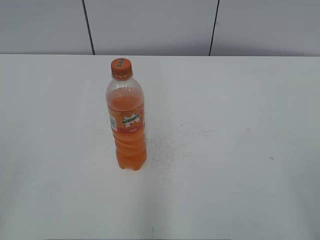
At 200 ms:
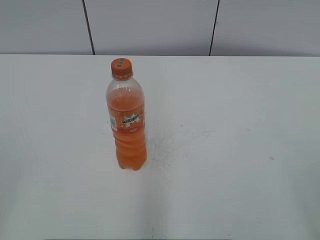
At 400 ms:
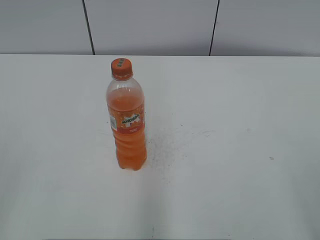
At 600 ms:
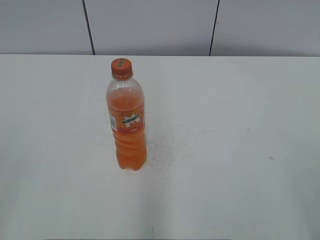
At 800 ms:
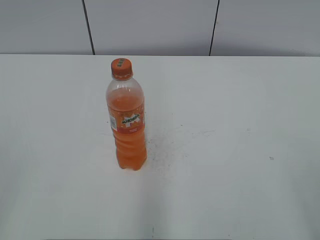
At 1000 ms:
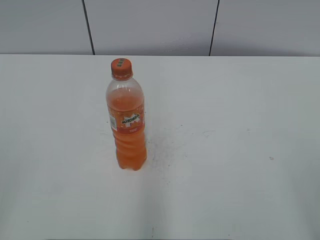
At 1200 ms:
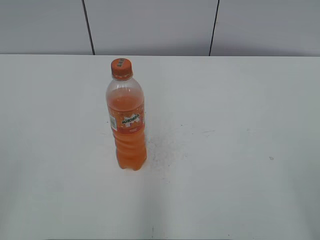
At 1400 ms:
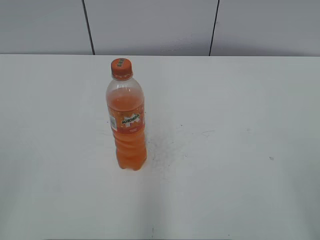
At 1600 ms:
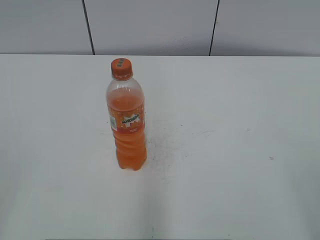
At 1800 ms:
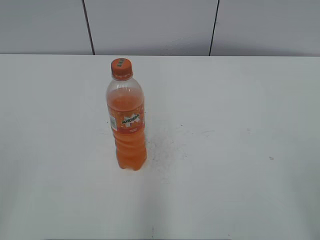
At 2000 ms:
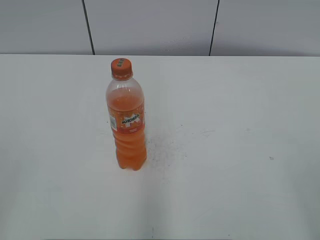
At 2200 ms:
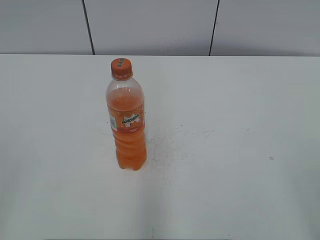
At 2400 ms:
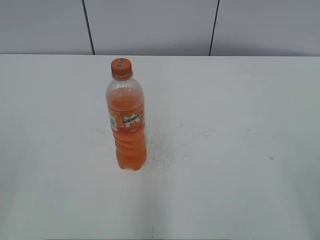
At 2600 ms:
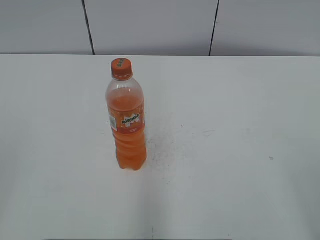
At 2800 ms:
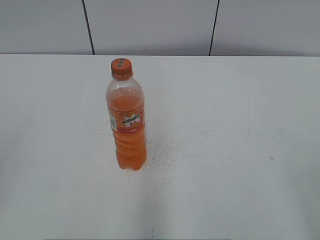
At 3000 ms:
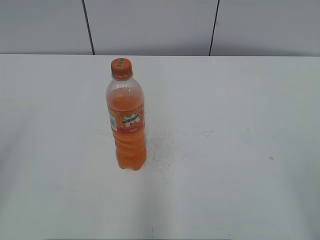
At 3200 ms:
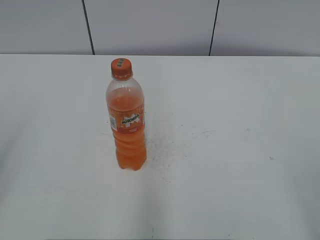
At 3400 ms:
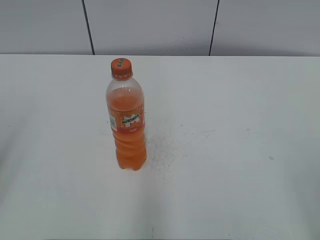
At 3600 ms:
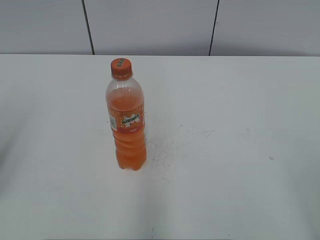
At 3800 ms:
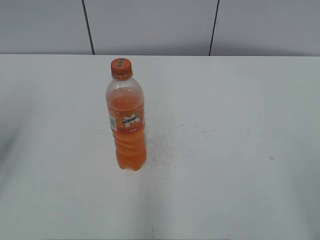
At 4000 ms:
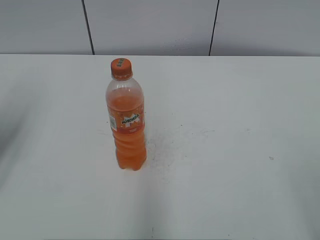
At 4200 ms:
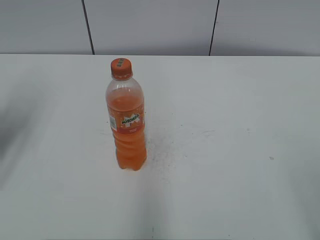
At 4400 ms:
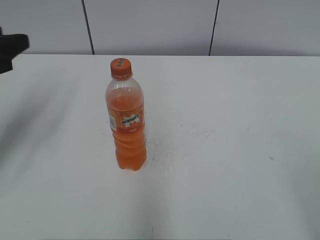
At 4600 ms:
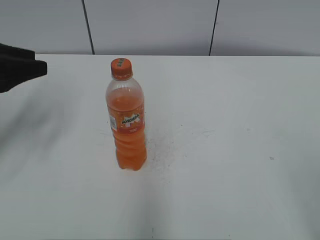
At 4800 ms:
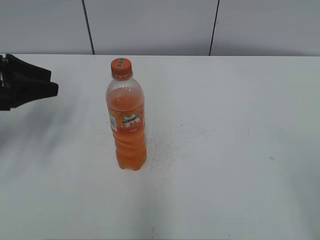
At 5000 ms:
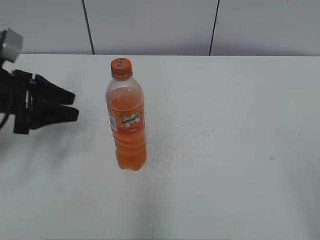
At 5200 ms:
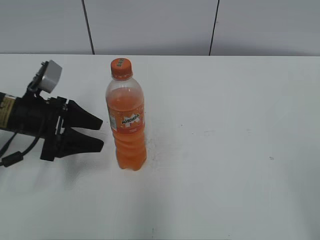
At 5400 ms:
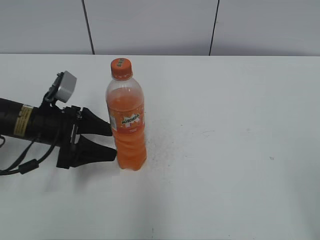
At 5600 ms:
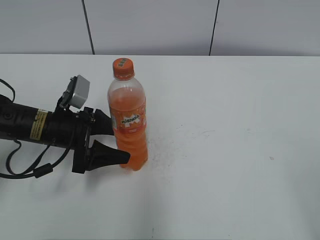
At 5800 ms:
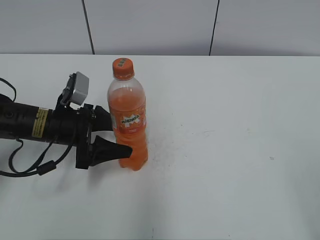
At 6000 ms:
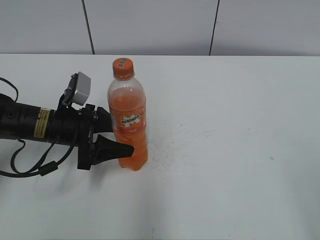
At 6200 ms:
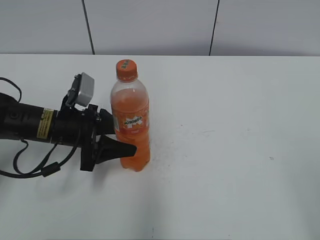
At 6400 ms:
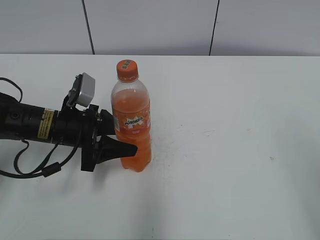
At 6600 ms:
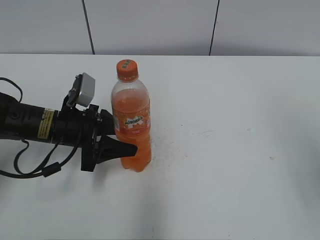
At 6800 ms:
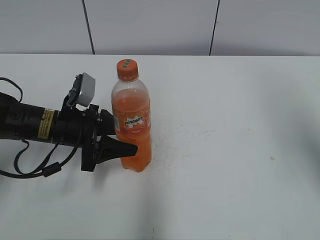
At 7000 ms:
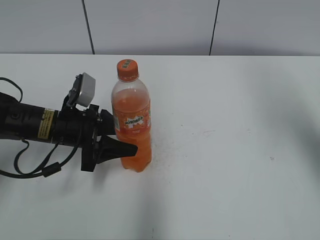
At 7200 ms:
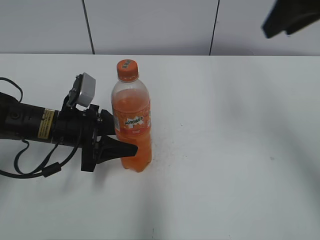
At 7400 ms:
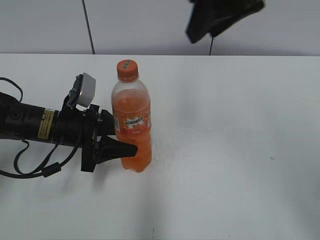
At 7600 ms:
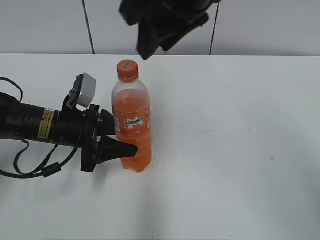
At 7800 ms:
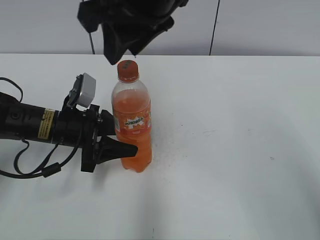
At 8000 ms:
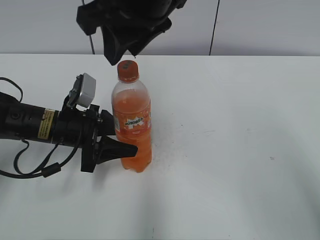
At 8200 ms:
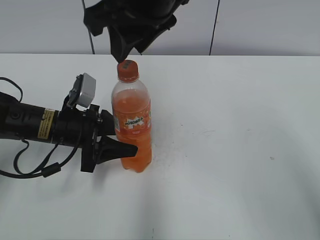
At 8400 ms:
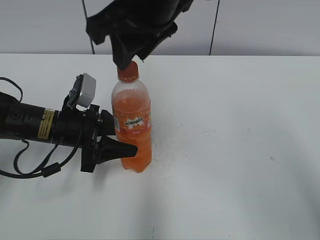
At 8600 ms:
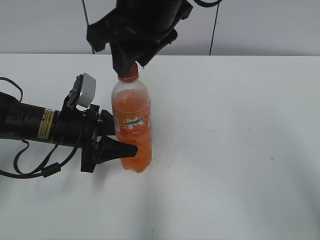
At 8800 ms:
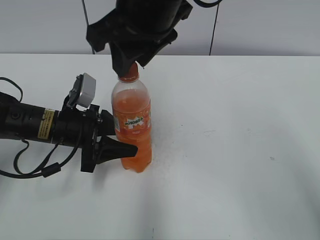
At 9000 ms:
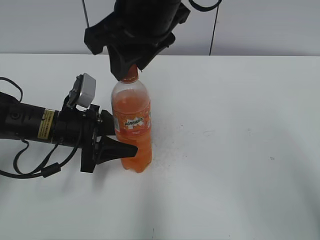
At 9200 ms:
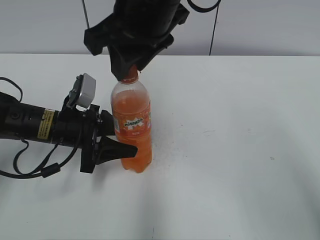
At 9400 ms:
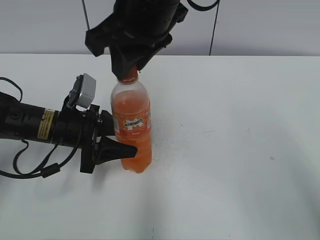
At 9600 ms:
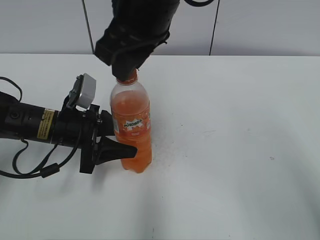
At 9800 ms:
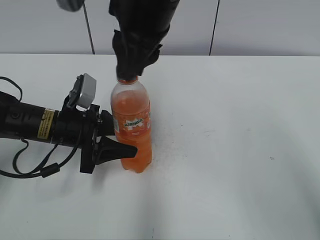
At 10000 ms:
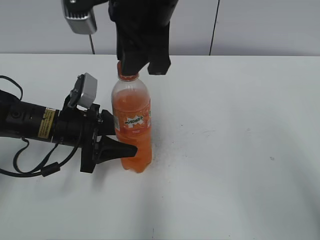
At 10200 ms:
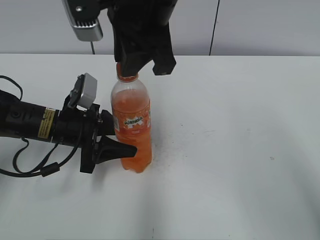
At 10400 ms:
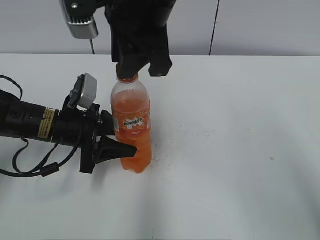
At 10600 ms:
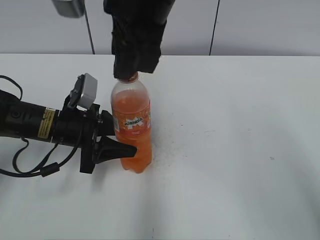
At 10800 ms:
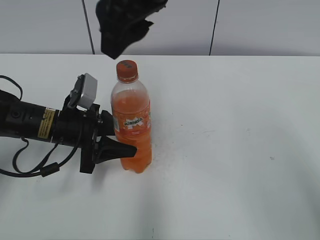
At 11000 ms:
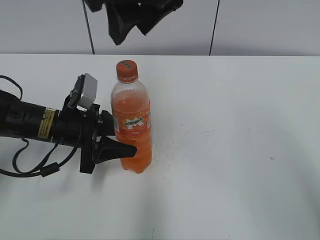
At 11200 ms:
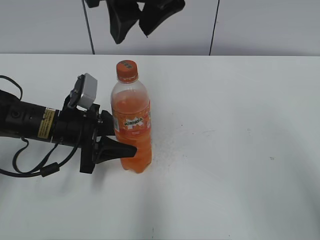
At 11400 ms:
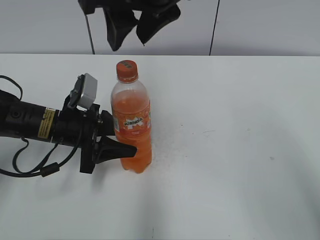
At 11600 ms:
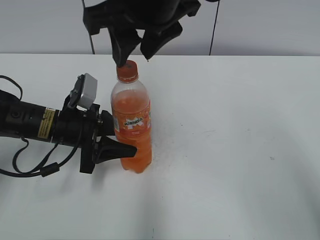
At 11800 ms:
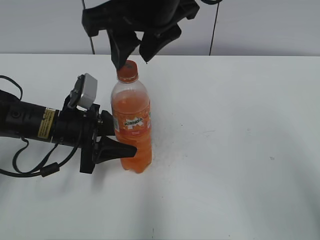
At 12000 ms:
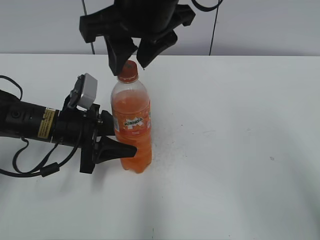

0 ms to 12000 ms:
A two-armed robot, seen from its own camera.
Step, 0 ms to 6400 ms: Grab the Mirinda with the left hand.
3000 ms to 4400 ms: The left gripper is displaced forward by roughly 20 cm.
4400 ms to 6000 ms: The left gripper is displaced downward and to the right by some 20 cm, and opens its fingers.
6000 ms to 7600 ms: The left gripper closes up; the right gripper moves forward and to the left, about 40 cm, and closes its fingers.
7600 ms to 9000 ms: The right gripper ends up approximately 5 cm from where it was.
10400 ms to 12000 ms: The right gripper opens its fingers.

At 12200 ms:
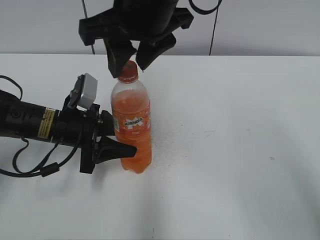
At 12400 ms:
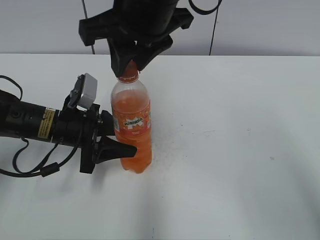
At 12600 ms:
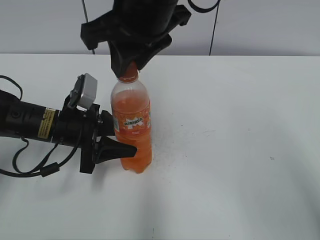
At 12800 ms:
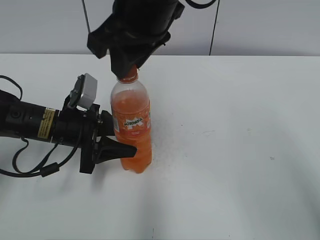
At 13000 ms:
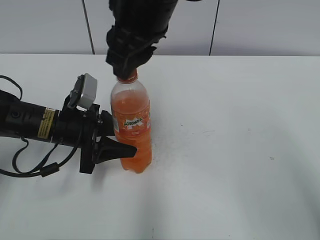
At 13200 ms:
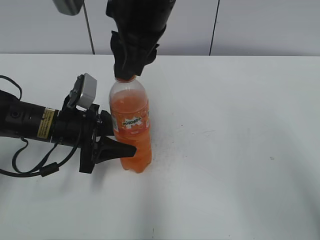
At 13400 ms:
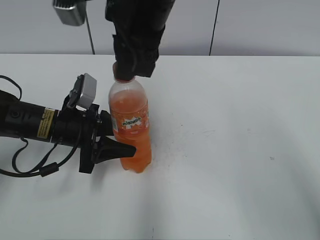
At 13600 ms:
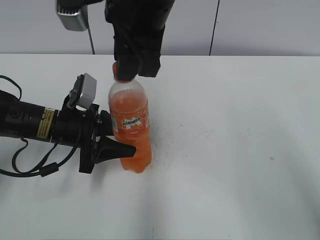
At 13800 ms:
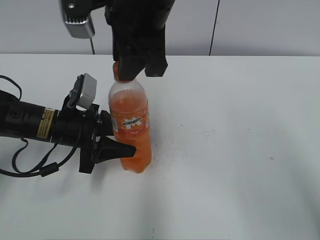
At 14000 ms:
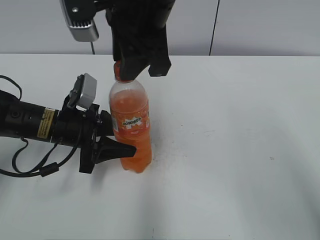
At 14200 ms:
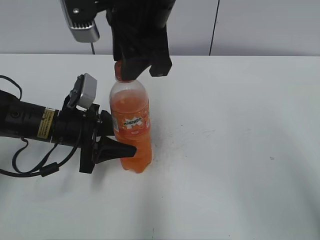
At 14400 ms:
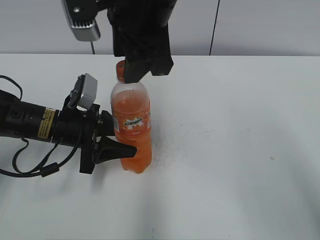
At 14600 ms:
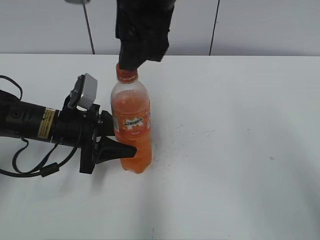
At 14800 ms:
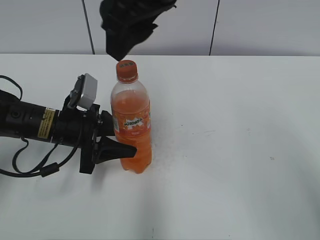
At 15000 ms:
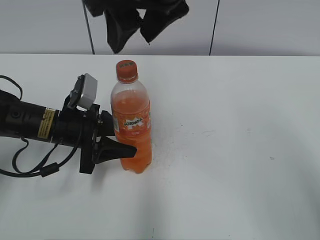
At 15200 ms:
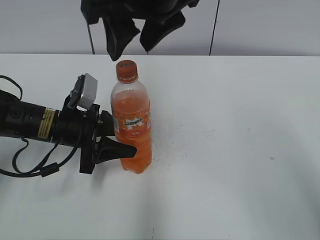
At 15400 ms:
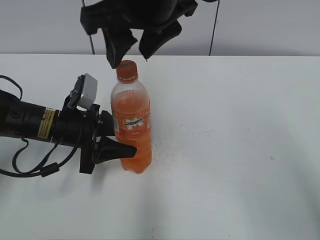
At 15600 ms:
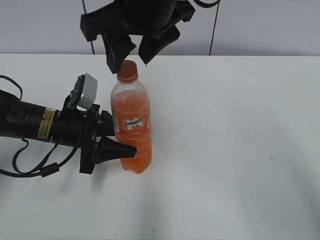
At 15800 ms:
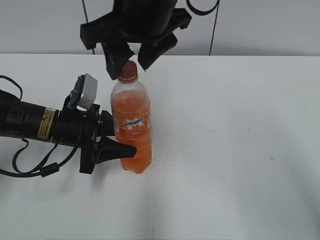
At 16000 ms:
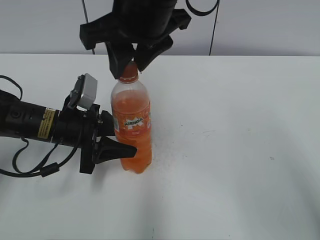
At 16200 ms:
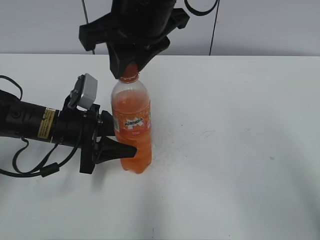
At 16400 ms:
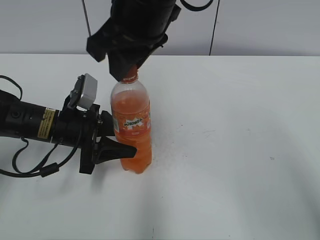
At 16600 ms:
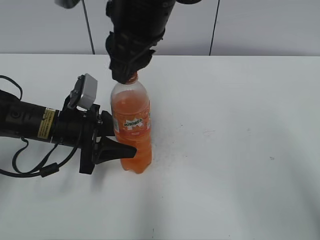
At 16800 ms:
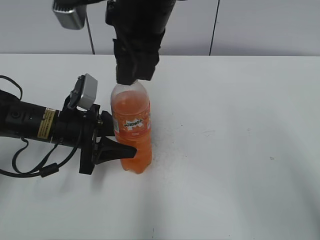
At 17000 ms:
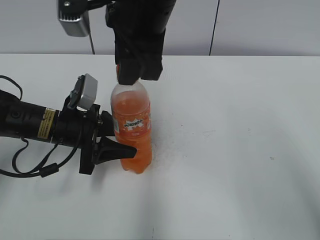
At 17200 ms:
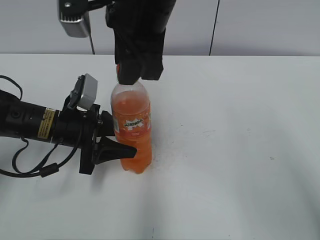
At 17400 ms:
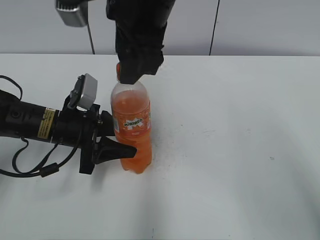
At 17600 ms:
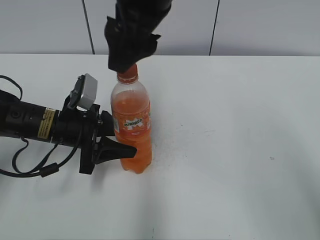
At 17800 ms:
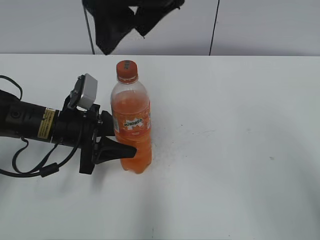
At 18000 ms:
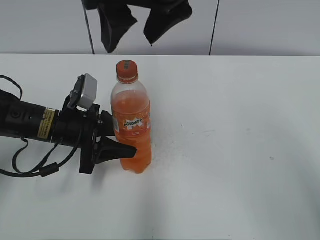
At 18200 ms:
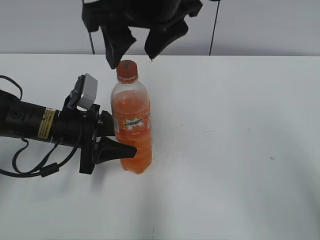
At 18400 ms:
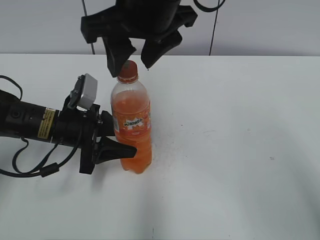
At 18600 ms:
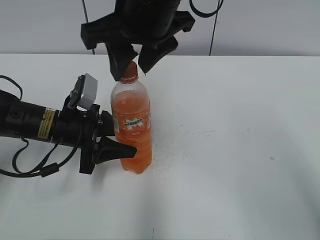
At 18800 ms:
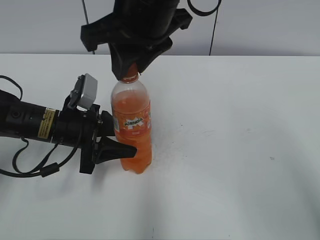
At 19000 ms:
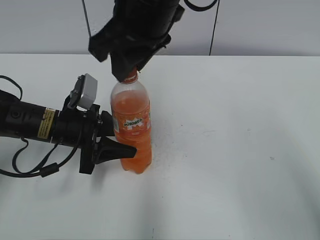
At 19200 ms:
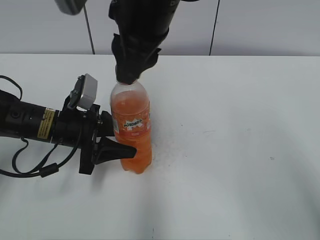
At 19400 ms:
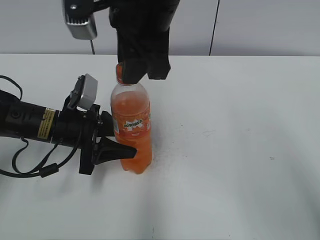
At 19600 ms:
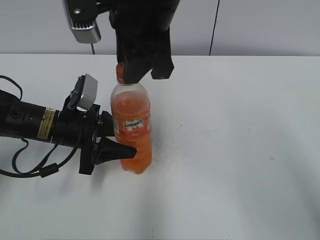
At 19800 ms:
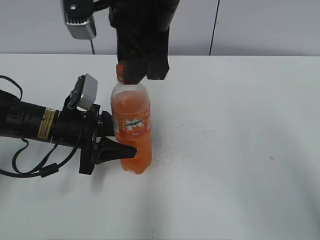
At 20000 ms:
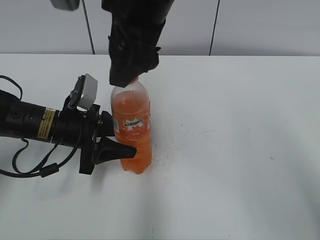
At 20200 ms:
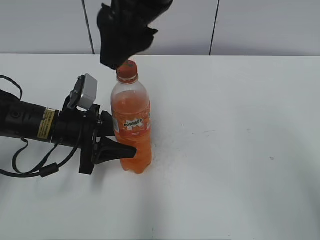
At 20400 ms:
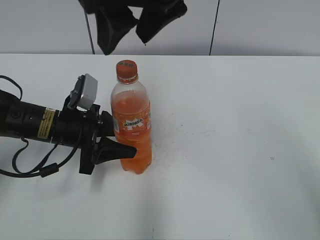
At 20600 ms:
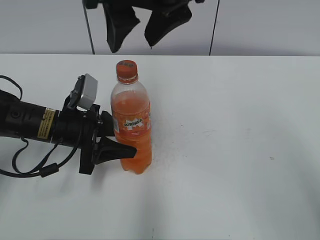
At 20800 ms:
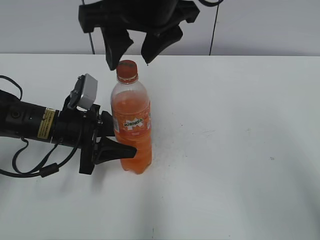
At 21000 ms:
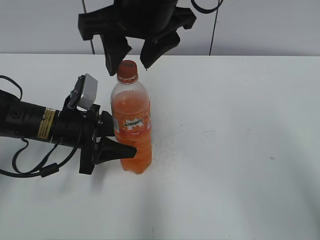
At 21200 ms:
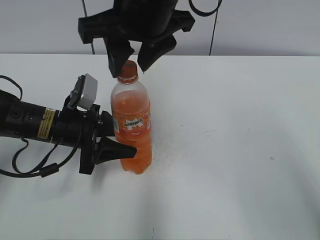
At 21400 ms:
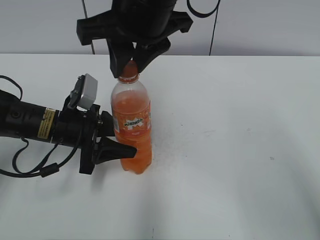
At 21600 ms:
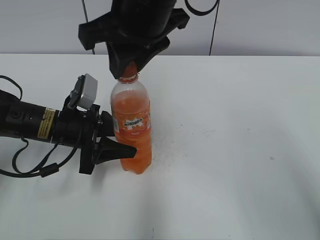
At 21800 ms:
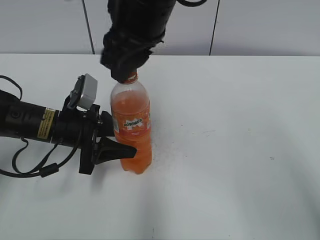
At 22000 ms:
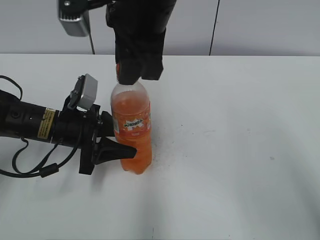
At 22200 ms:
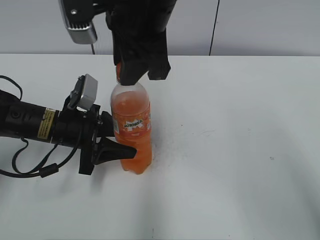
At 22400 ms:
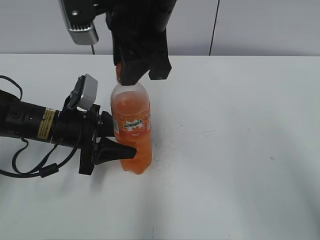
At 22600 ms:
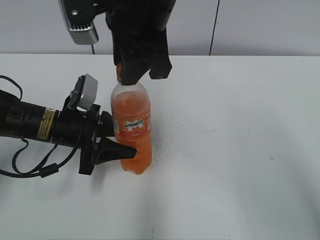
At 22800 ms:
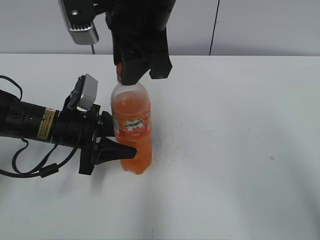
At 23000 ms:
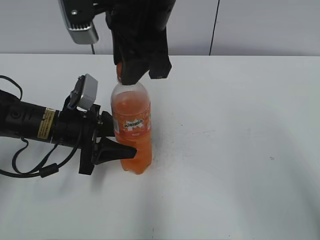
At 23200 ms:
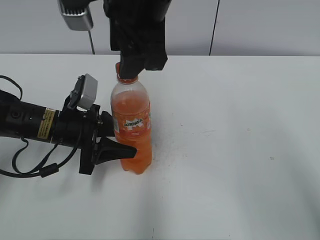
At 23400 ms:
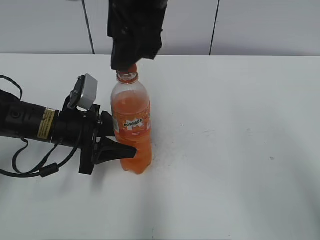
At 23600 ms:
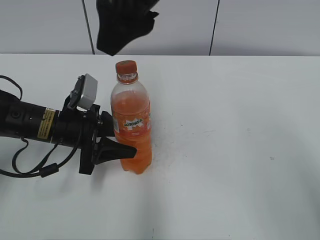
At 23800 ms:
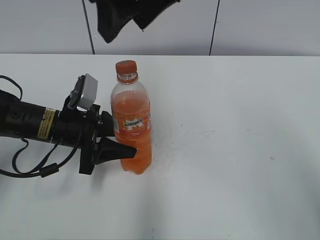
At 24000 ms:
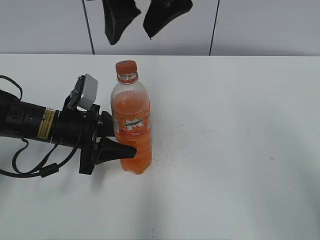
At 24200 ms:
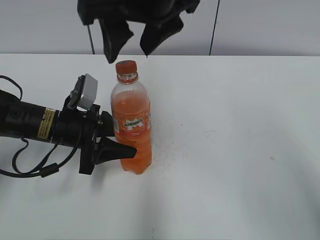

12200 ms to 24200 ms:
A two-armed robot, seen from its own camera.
12200 ms to 13800 ms: The right gripper closes up.
13800 ms to 15200 ms: The right gripper opens its fingers.
15200 ms to 16600 ms: The right gripper closes up.
16600 ms to 18200 ms: The right gripper opens.
18200 ms to 19800 ms: The right gripper closes up.
19800 ms to 21200 ms: The right gripper opens, then closes again.
21200 ms to 22600 ms: The right gripper closes.
22600 ms to 24200 ms: The right gripper opens its fingers.
